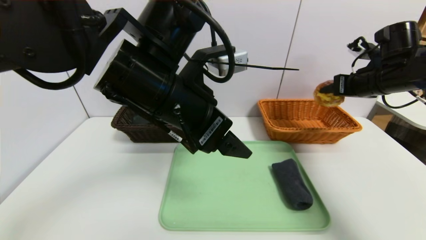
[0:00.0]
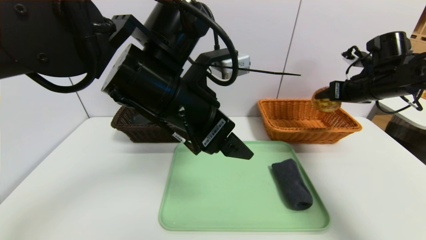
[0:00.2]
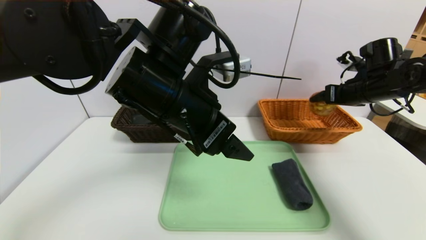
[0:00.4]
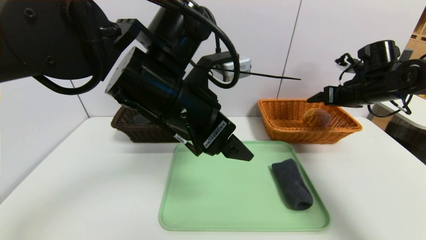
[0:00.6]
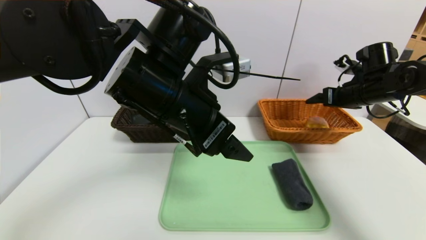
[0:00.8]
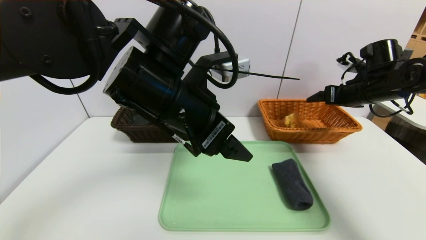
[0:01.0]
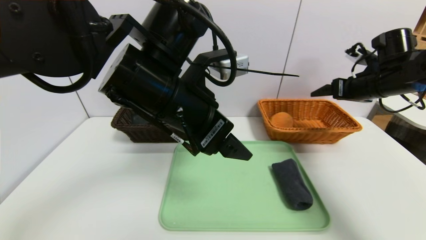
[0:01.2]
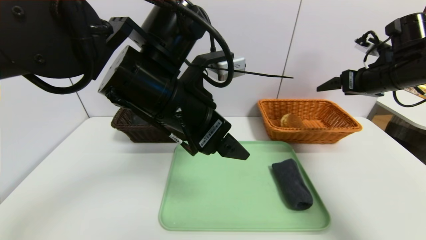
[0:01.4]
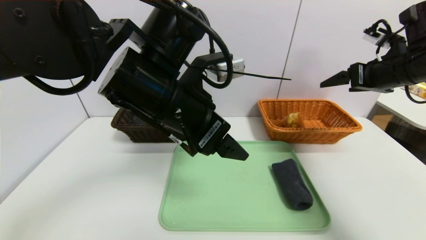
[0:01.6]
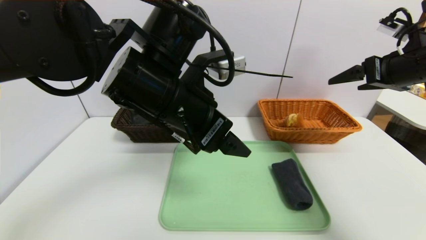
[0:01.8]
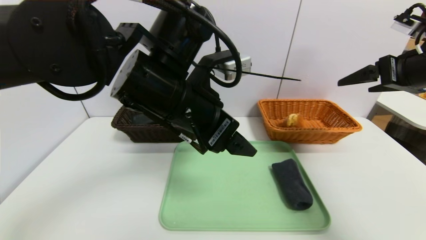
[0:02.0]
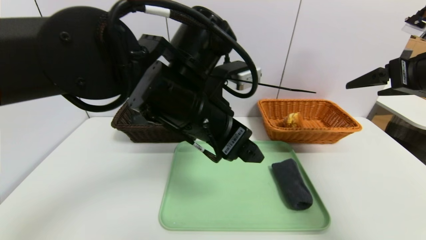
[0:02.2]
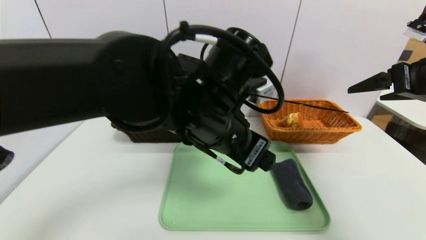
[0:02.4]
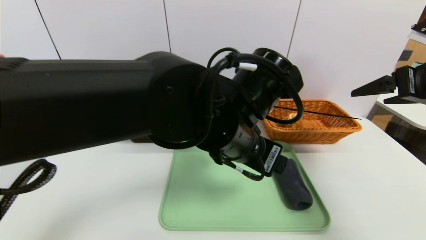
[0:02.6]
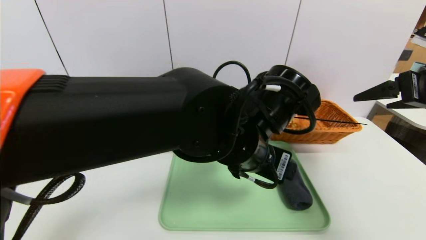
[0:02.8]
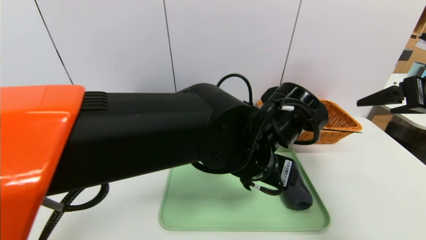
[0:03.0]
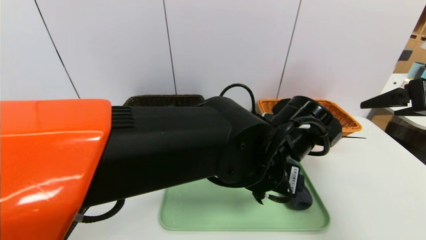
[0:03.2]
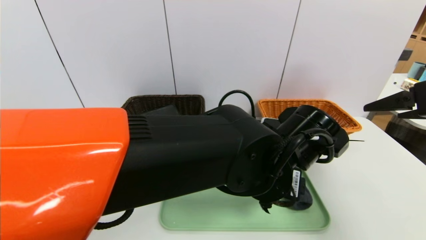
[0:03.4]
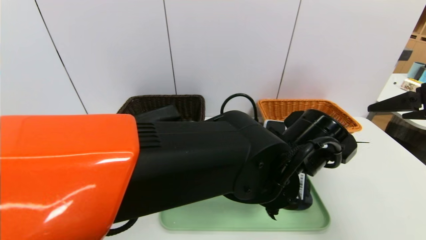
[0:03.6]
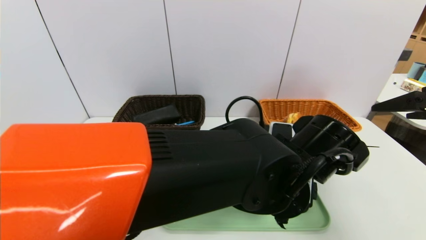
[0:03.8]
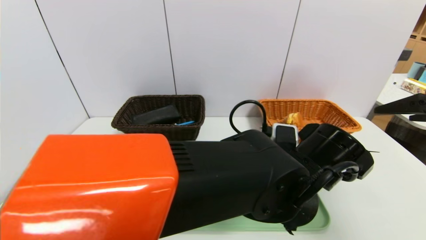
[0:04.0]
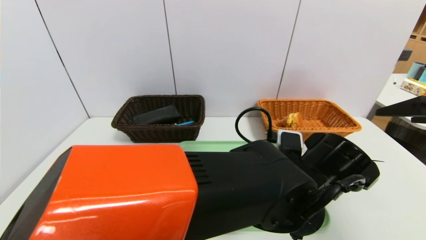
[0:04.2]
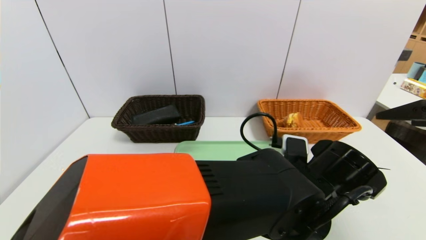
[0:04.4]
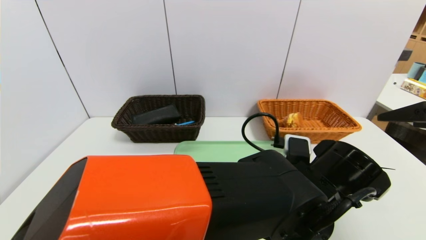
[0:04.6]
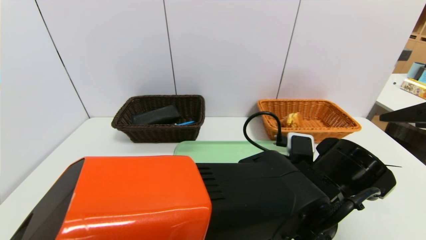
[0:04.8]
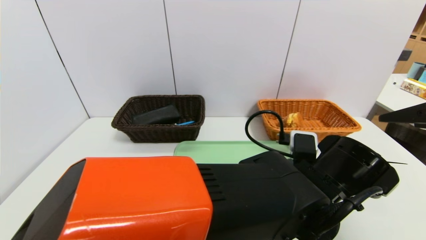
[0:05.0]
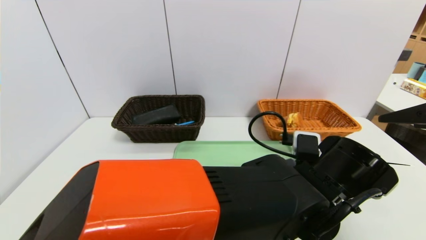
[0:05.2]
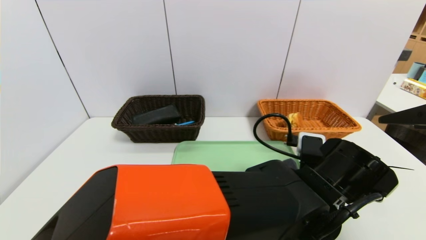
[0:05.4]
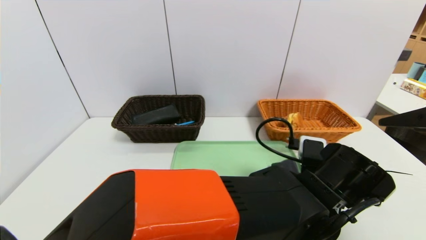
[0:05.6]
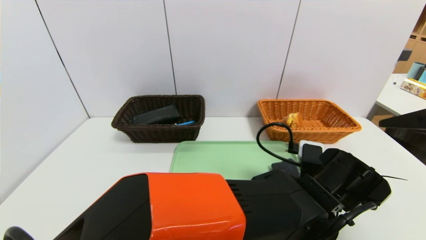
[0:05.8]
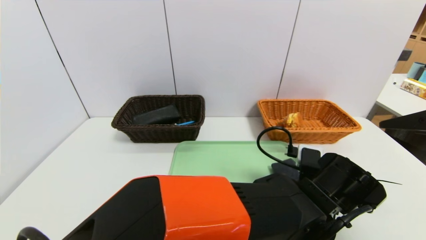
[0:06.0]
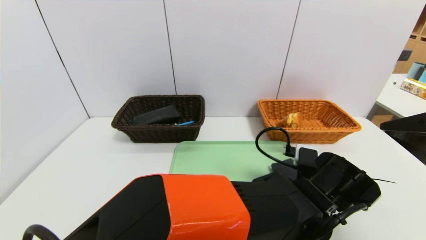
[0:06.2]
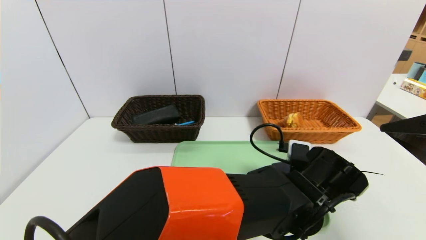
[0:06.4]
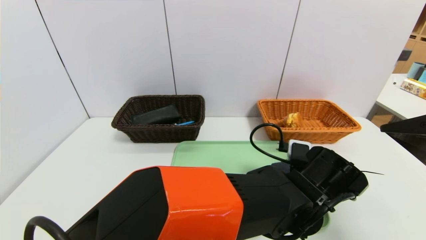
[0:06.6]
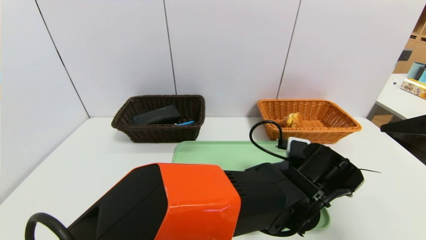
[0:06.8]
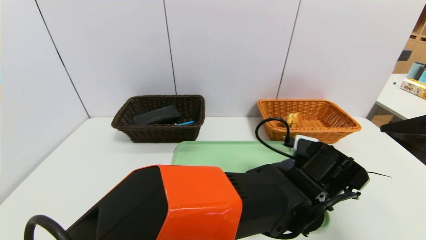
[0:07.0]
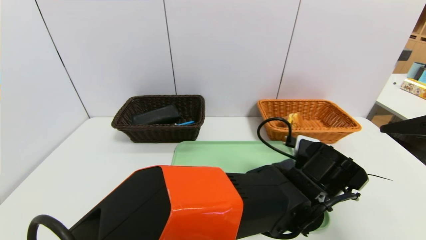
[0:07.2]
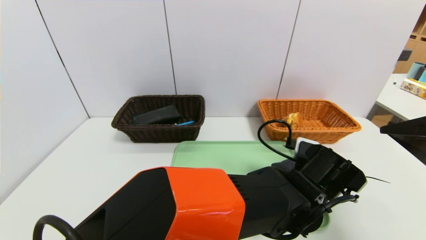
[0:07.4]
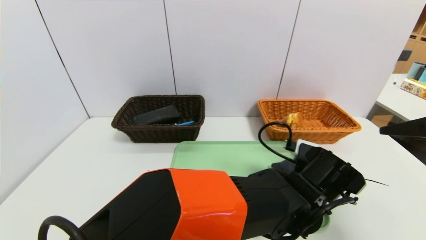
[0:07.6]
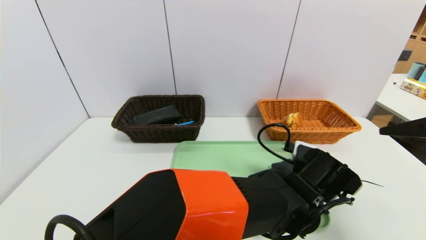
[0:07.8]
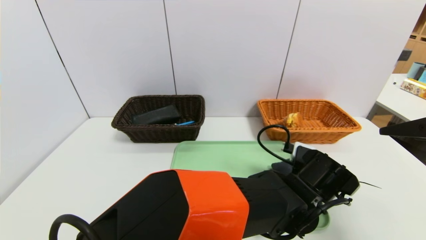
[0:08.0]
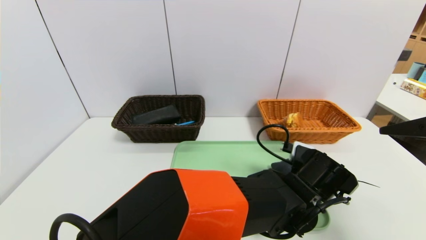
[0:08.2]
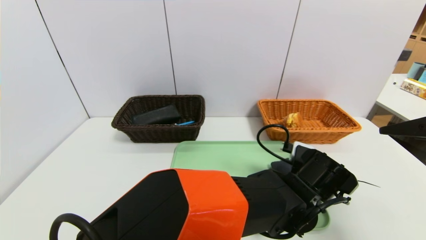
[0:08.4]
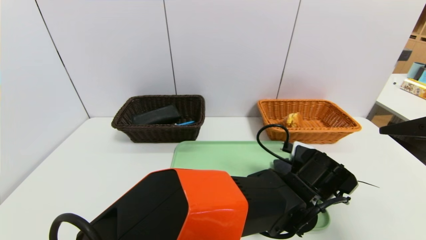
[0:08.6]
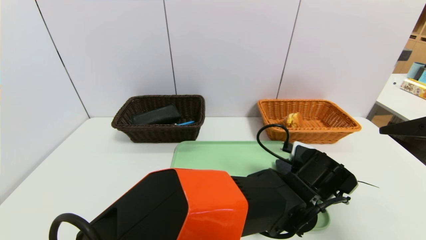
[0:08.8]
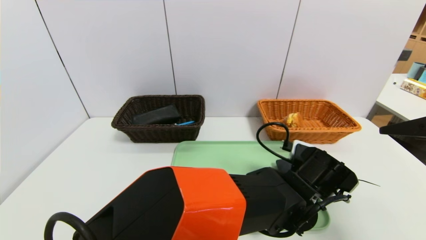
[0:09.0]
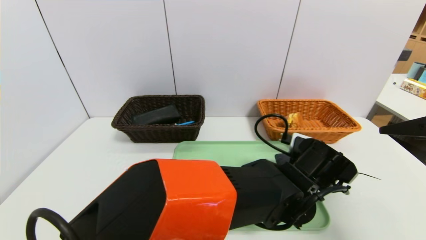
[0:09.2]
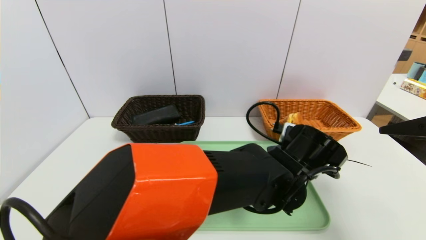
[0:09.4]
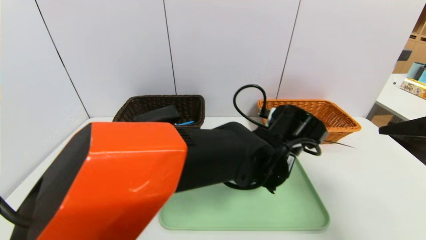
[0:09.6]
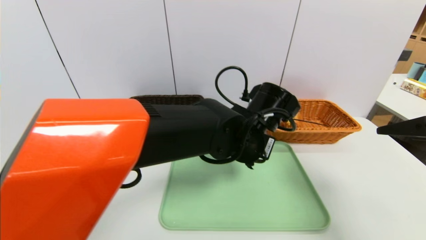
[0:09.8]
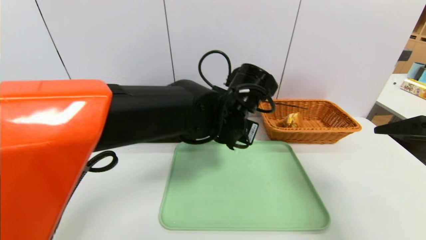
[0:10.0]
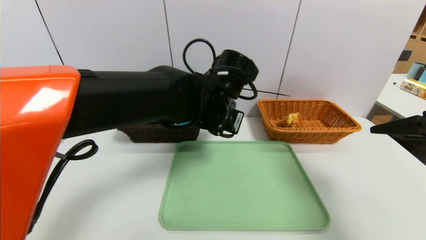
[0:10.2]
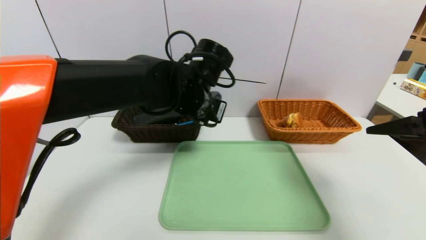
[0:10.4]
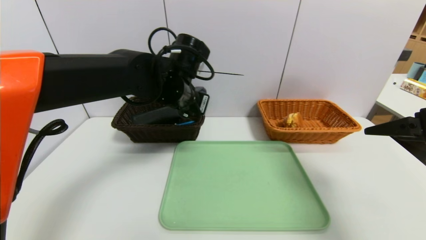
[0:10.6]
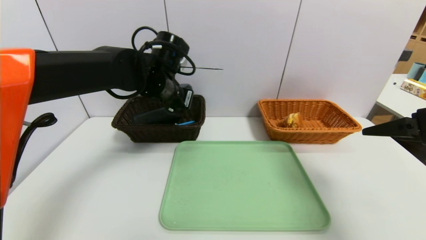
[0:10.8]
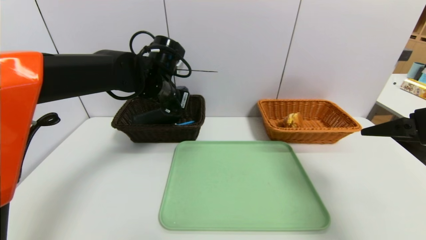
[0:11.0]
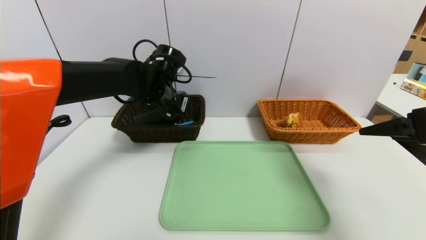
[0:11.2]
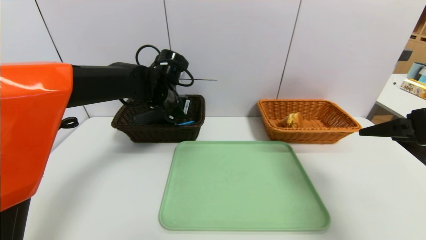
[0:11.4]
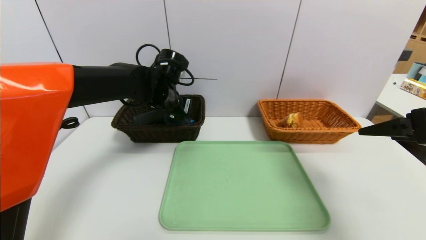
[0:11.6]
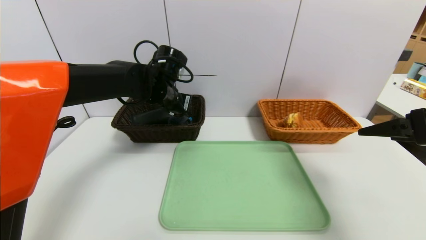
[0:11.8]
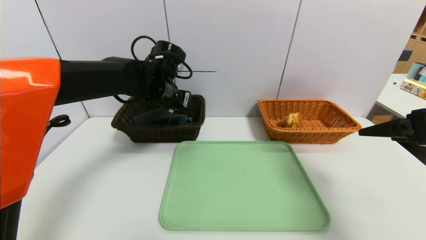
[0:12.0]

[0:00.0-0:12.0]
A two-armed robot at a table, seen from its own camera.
Task of the whole recording: place the food in the right basket with the right gripper, and place the non food items in the left basket with the left gripper.
Step, 0:01.2 to 0:12.0: Grasp the grey towel and put it in the left basket.
0:00.0 to 0:01.6: The right gripper ends up roughly 5 cm from where it was, and opens its fingers.
0:01.6 to 0:03.0: The right gripper goes roughly 10 cm backward; the left gripper is displaced to the right and downward by approximately 15 cm.
0:03.0 to 0:04.4: The left gripper heads to the right and downward, covering some 10 cm.
0:06.0 to 0:07.6: The grippers stay close to where they were, moving slightly.
0:07.6 to 0:09.0: The left gripper closes its fingers.
0:09.0 to 0:10.4: The left gripper shifts about 25 cm to the left, upward and forward.
0:10.4 to 0:12.0: The left gripper travels to the left and forward by roughly 10 cm, and opens up.

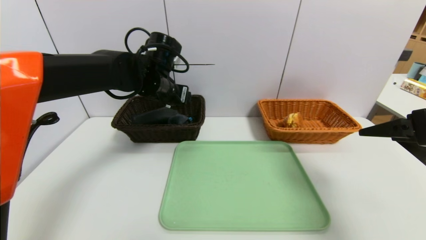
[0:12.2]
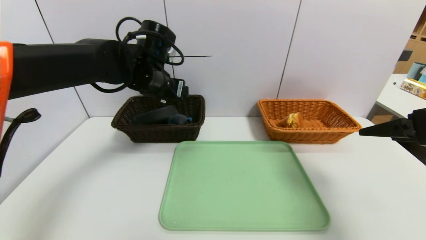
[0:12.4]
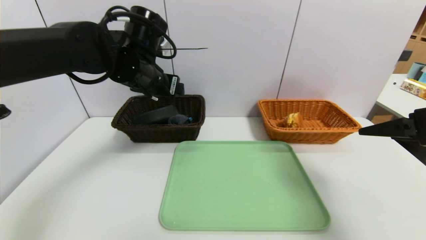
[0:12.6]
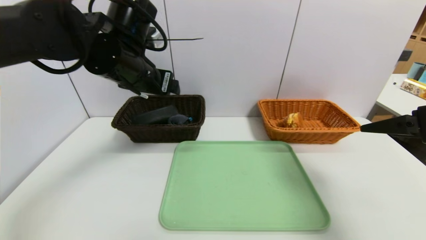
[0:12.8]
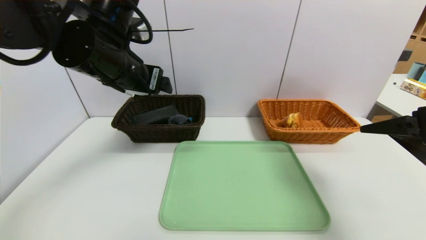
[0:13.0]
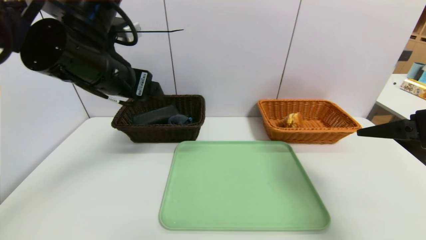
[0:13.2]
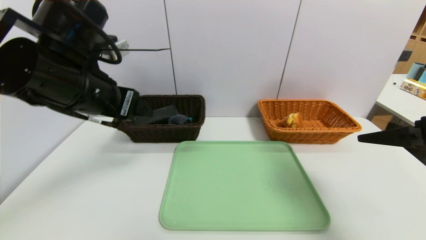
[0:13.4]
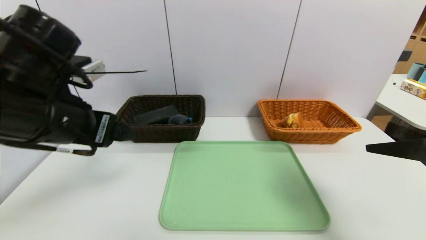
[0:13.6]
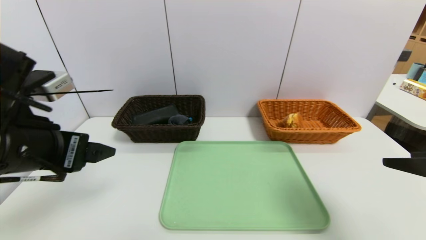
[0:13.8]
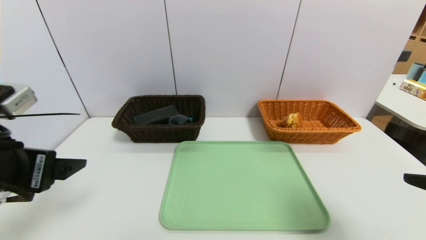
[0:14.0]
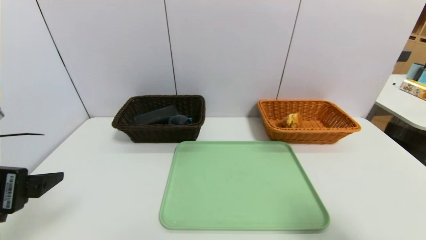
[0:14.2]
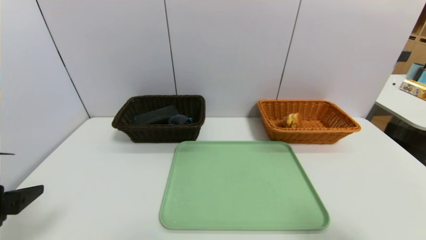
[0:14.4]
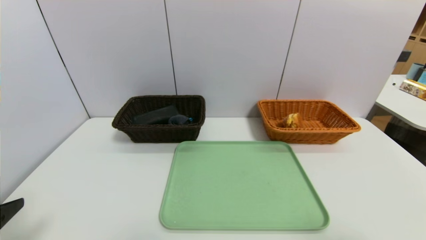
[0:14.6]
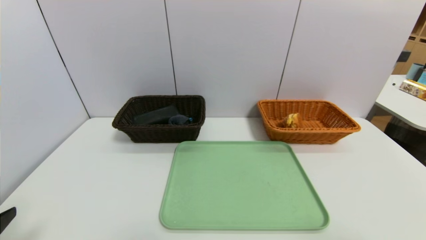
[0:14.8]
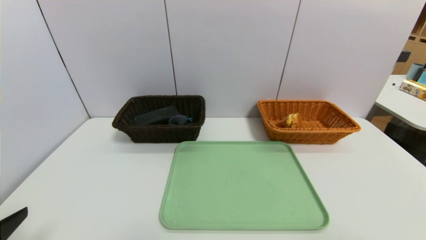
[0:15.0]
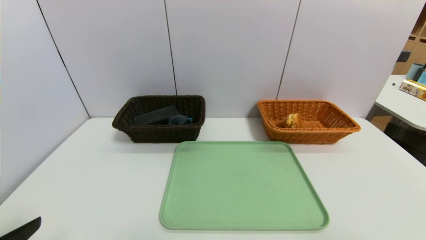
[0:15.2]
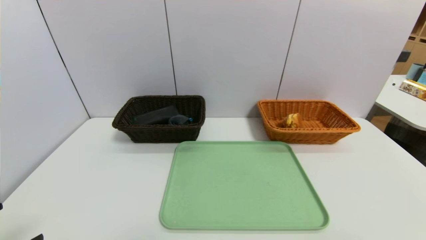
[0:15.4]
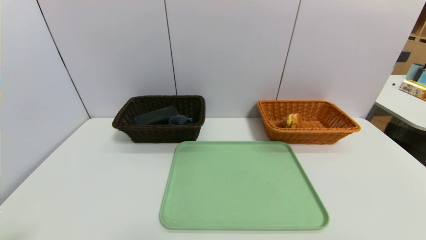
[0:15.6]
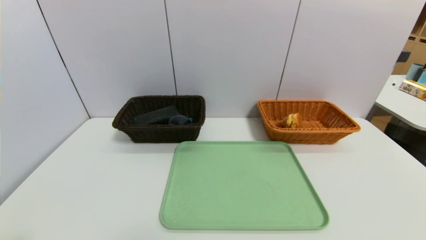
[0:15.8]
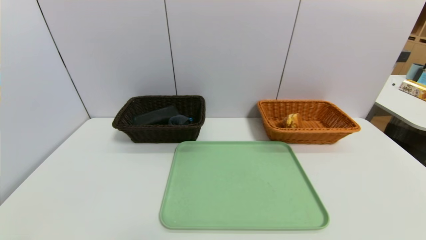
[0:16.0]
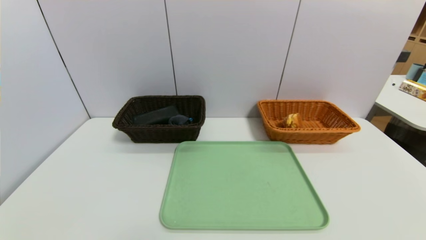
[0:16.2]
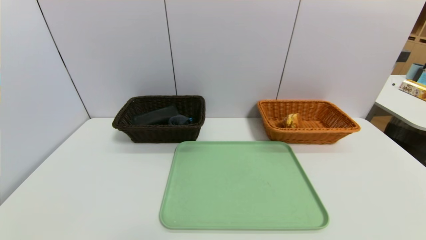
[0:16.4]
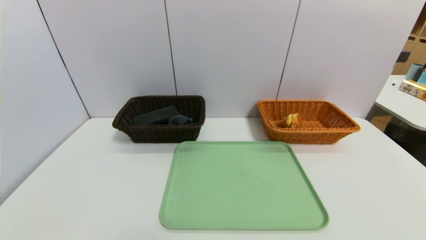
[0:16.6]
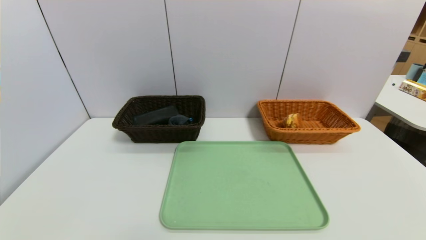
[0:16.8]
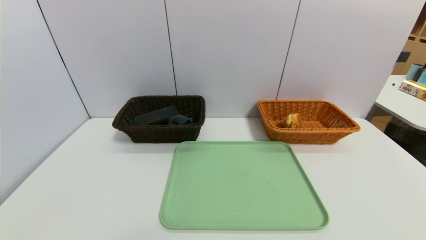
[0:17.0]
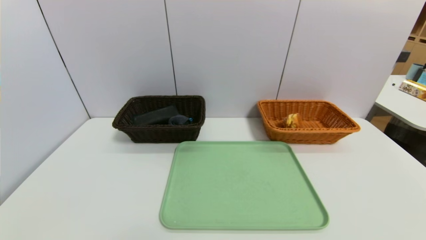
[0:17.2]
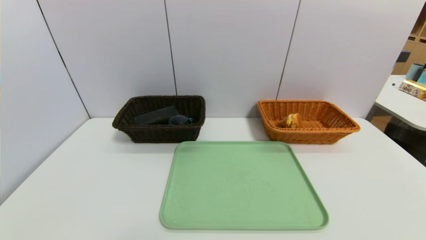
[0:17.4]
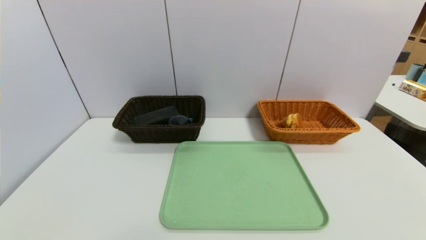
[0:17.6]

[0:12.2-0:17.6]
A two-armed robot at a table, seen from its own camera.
Task of the whole recording: place the food in the right basket with the right gripper, and place the non food items in the left basket with the left gripper.
0:12.2 to 0:13.6: The left gripper heads backward and to the left, covering some 20 cm. The right gripper shifts by about 5 cm.
0:13.6 to 0:15.0: The right gripper moves backward, roughly 15 cm; the left gripper shifts approximately 20 cm backward, to the left and downward.
